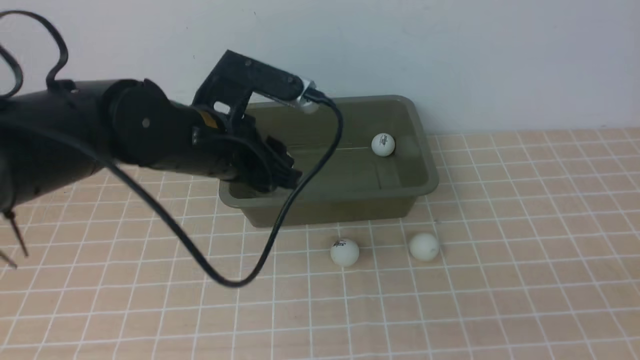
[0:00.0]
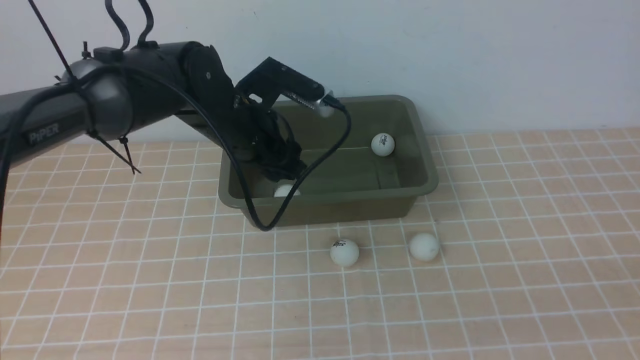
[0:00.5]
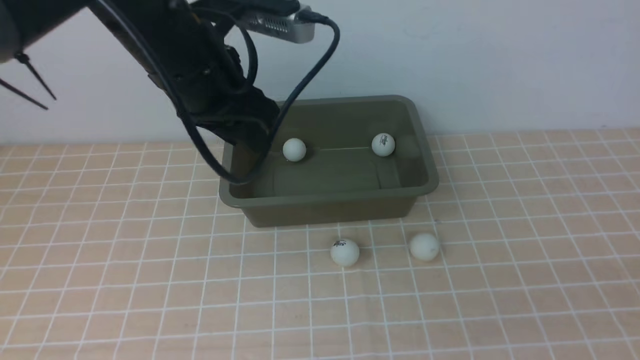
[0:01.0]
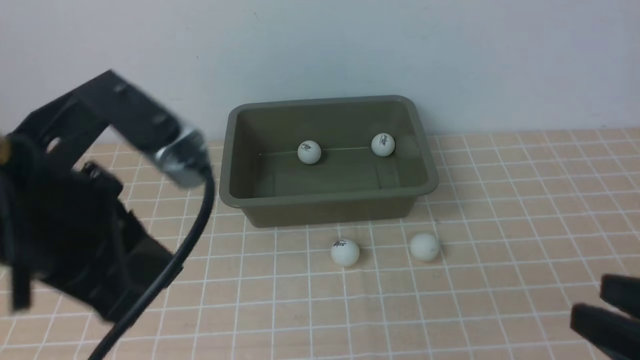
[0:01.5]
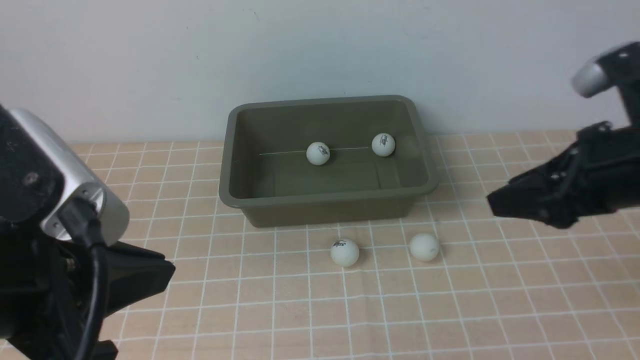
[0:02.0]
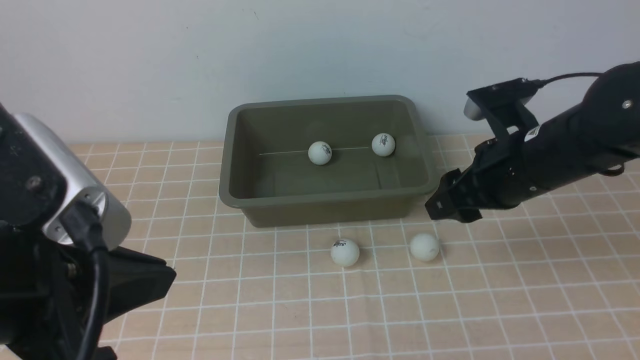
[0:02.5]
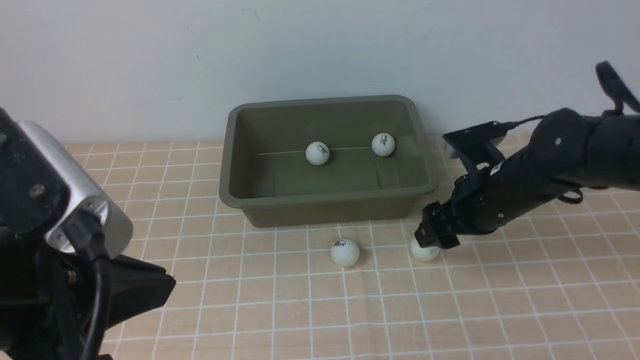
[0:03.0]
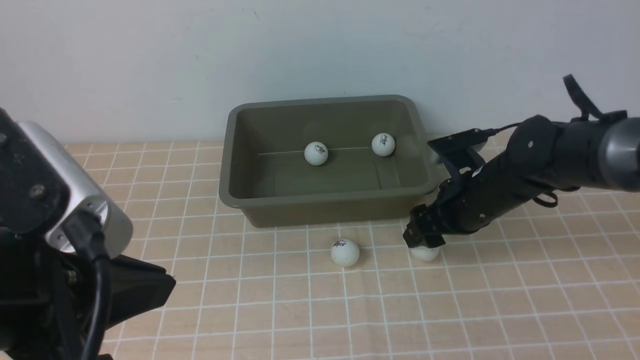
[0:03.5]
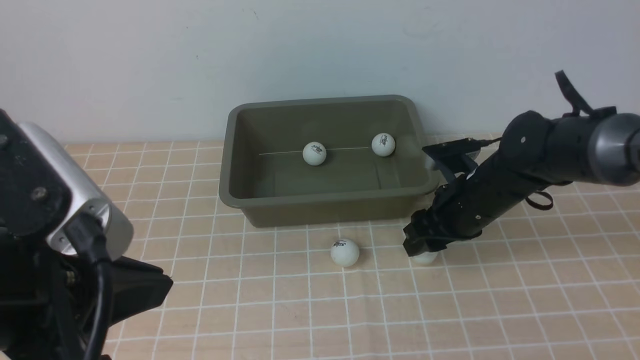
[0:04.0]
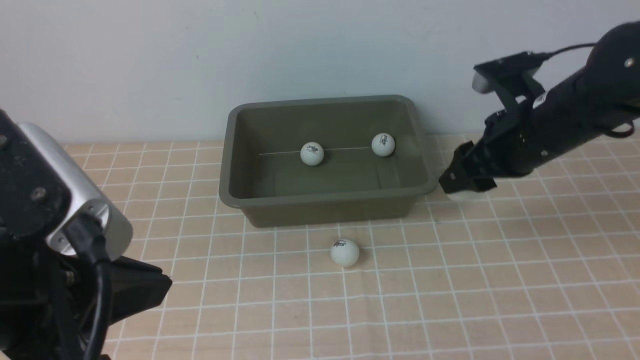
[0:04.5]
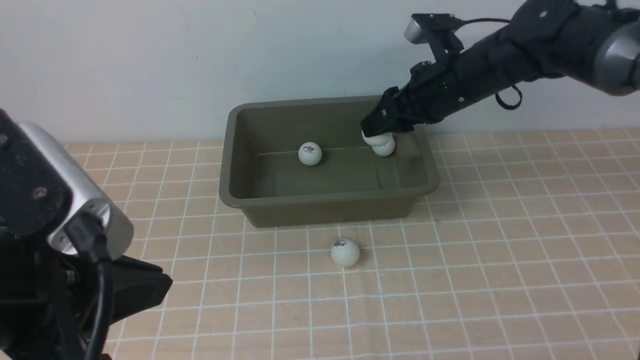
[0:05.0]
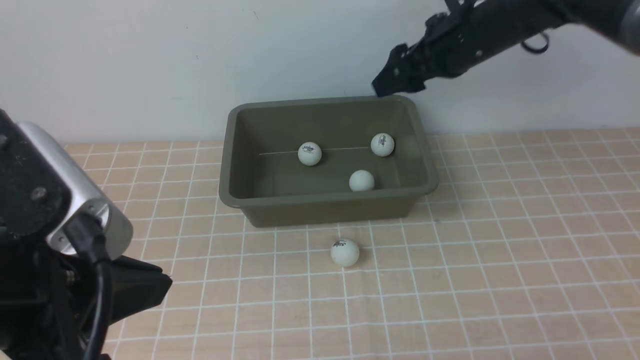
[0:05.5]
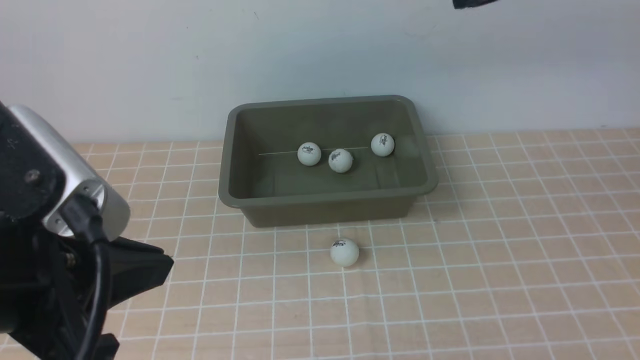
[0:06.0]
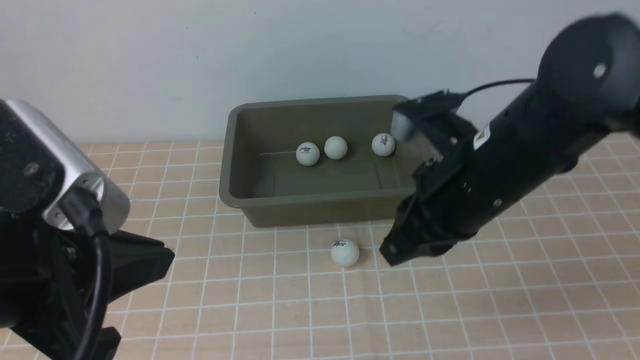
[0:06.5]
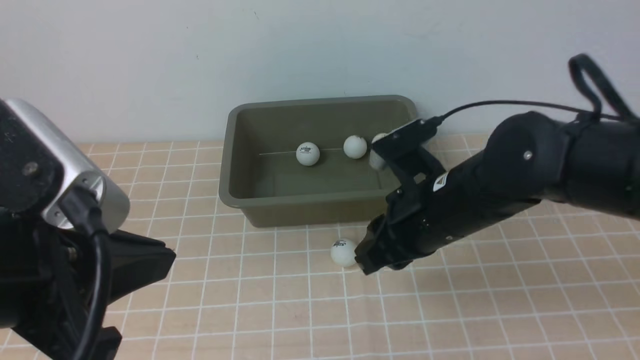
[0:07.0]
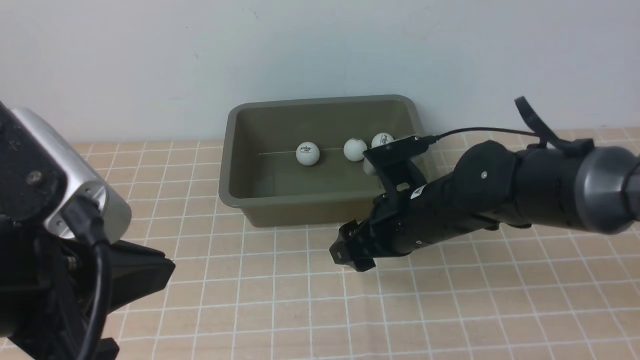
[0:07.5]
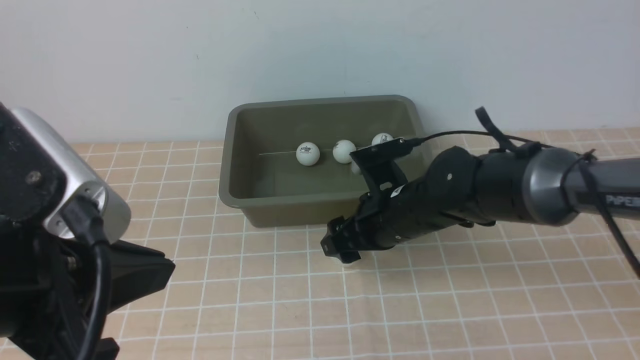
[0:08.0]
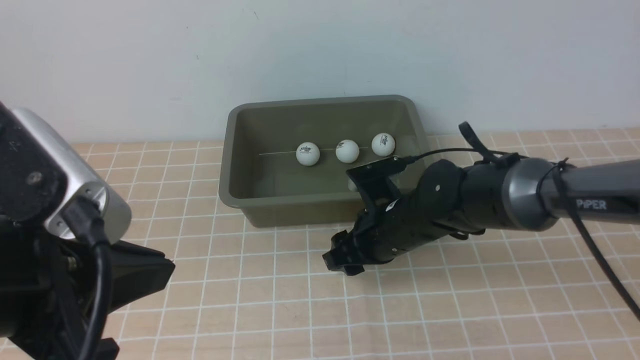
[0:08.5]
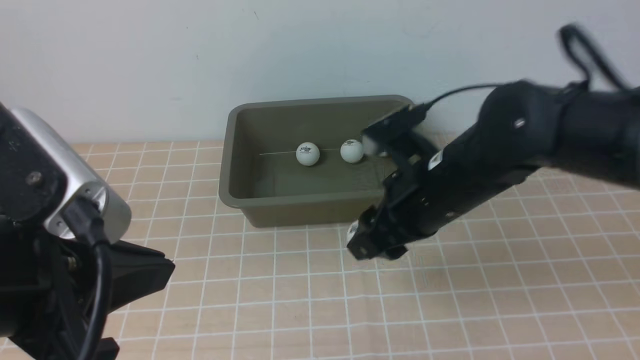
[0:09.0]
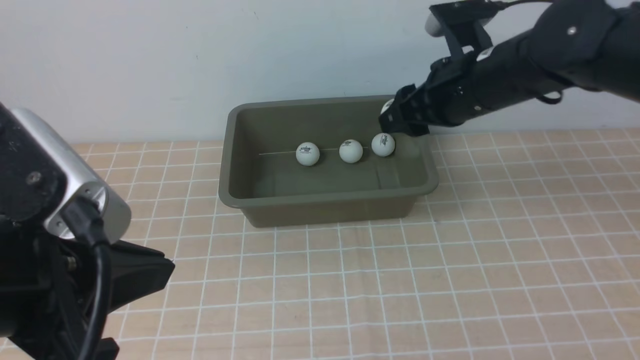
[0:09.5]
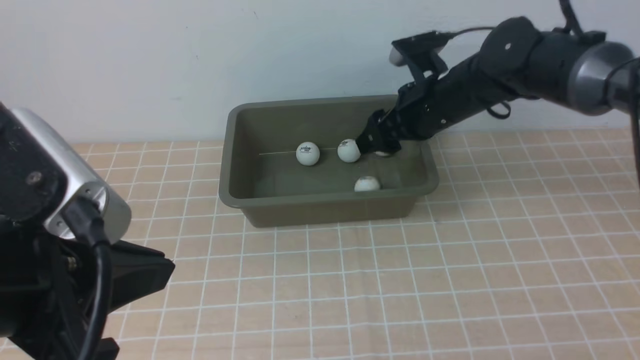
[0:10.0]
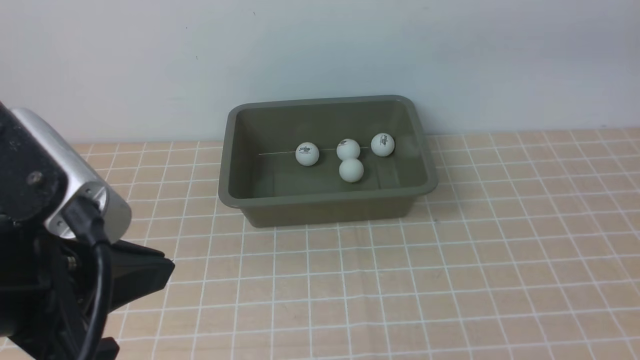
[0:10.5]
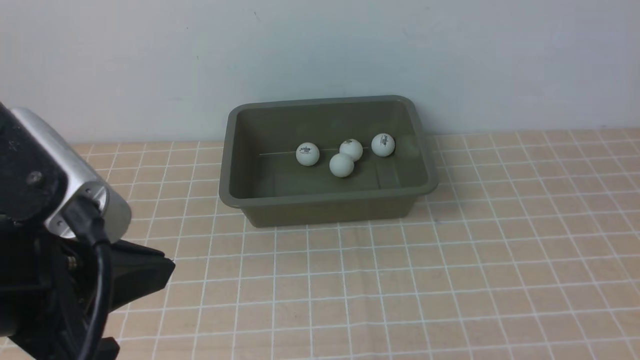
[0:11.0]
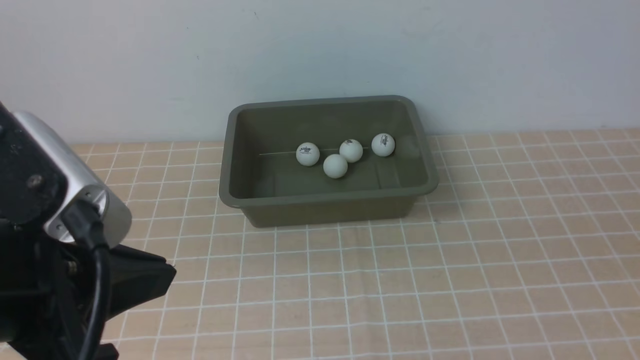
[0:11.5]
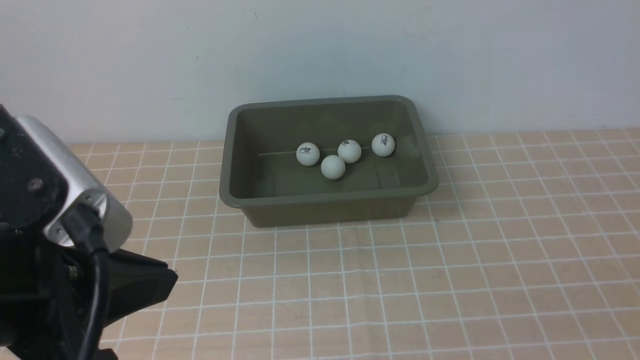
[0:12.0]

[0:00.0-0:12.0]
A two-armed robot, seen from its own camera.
Step, 0:01.0 to 0:04.5: use the left arm to clamp the table tennis ball closest to it.
0:00.0 to 0:02.0: The left gripper is displaced backward and upward by approximately 25 cm, and closes, while the right gripper travels forward by approximately 25 cm.
0:02.0 to 0:04.0: The right gripper moves downward and forward, some 20 cm.
0:04.0 to 0:06.0: The right gripper goes about 25 cm upward, and closes up.
0:06.0 to 0:08.0: The right gripper is displaced downward by approximately 25 cm, and opens its fingers.
0:08.0 to 0:10.0: The right gripper shifts about 15 cm upward, forward and to the right.
0:10.0 to 0:12.0: The right gripper moves backward, approximately 40 cm, and closes up.

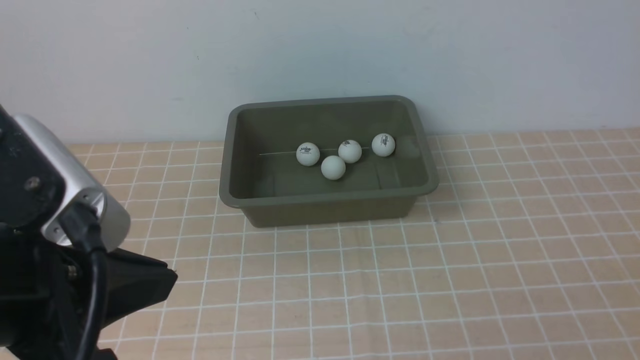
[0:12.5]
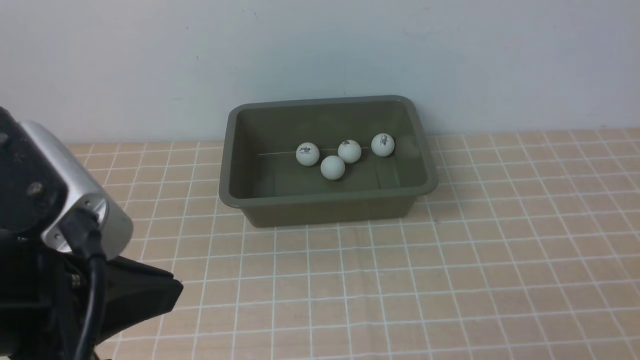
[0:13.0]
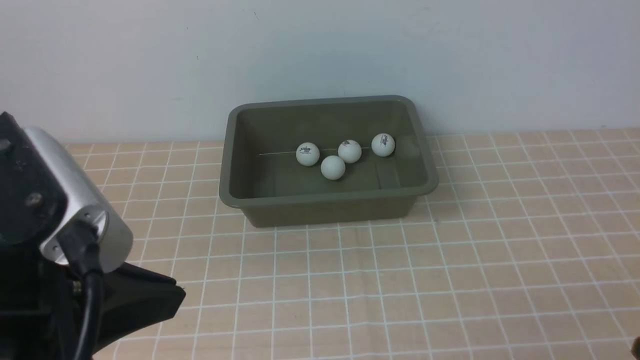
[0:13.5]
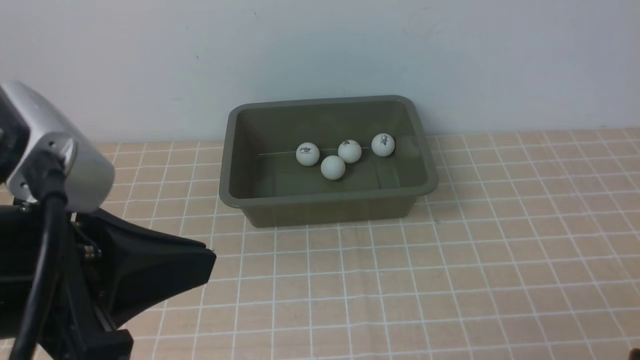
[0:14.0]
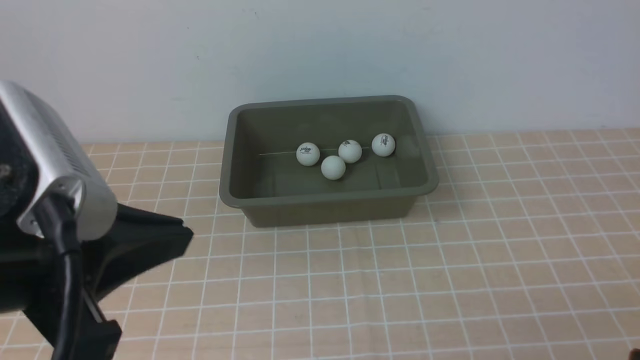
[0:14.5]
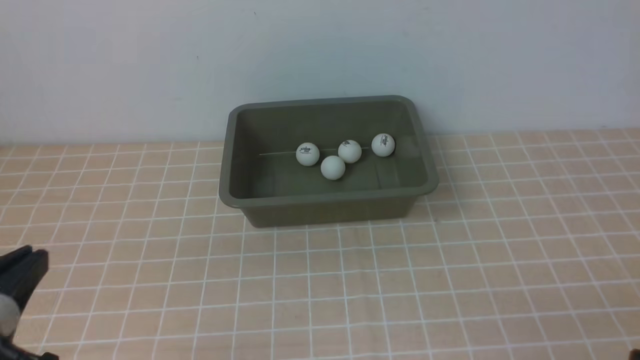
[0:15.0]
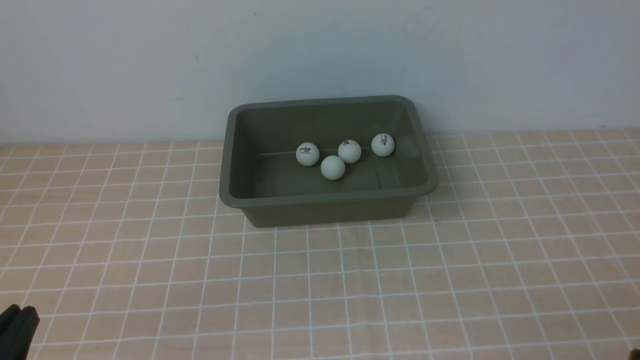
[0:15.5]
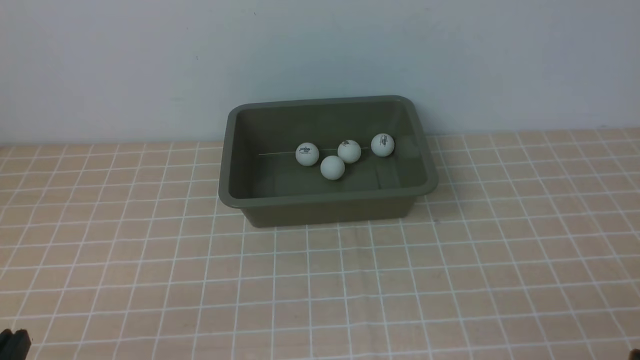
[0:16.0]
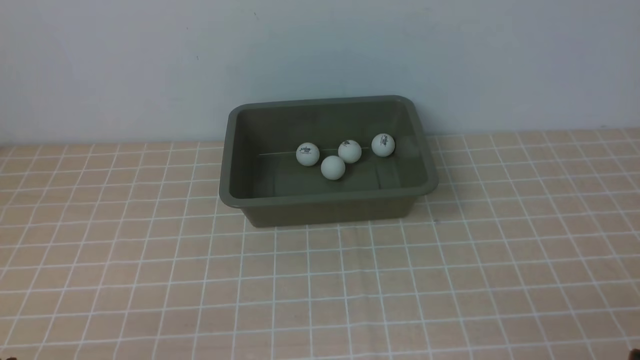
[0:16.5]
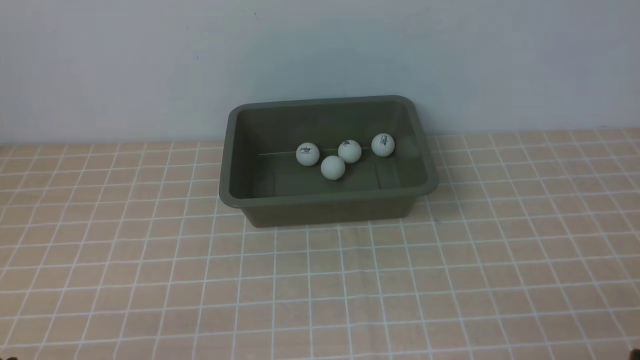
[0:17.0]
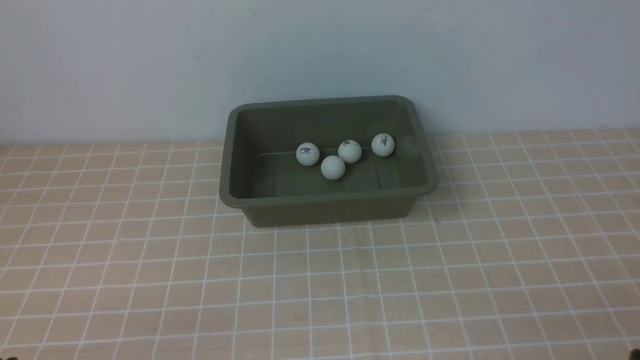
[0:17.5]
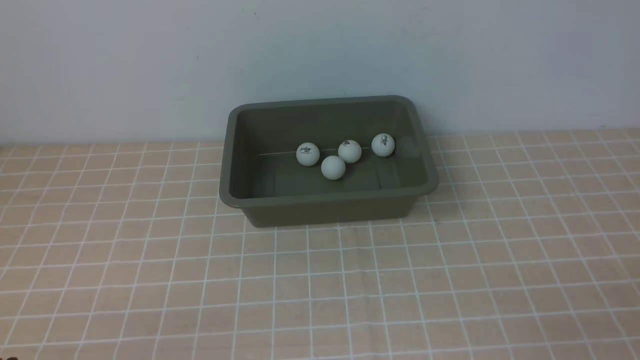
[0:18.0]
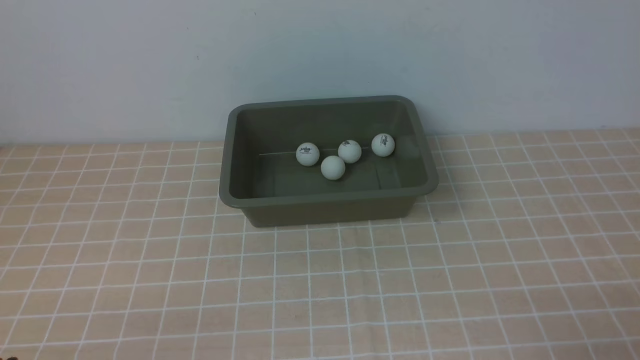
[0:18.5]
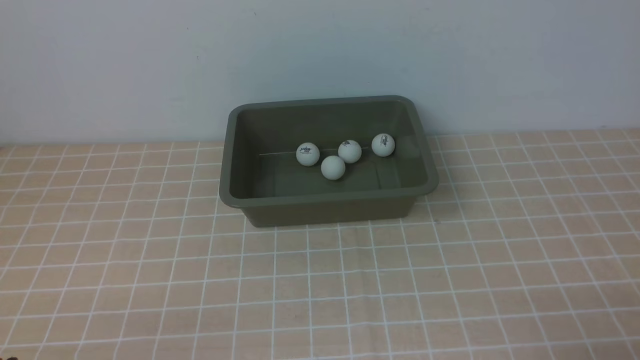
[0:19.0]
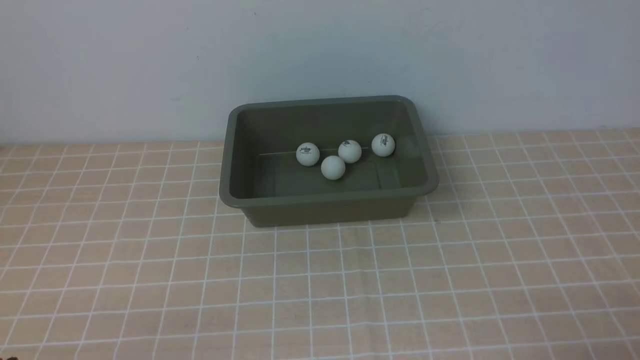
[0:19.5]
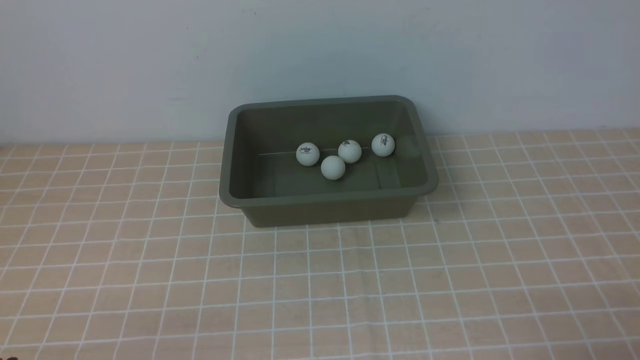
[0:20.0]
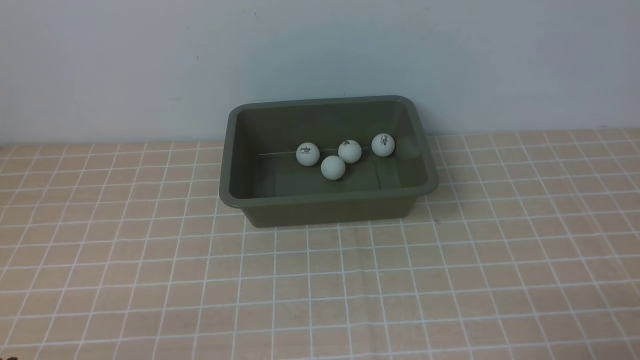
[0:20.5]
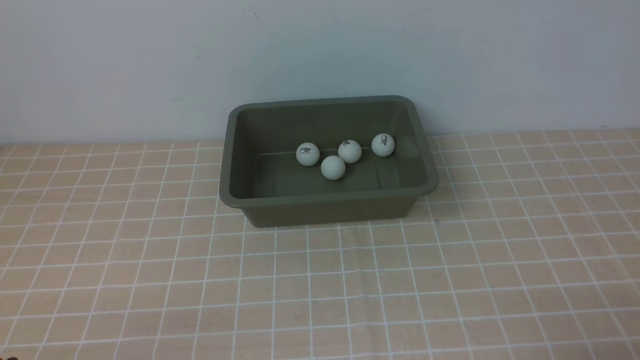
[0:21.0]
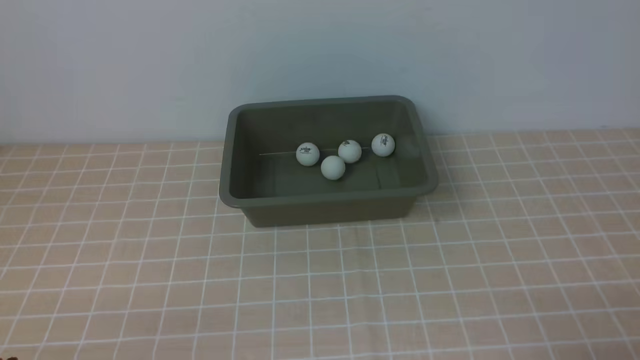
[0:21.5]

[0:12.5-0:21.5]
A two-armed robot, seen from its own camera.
0:14.5 to 0:17.0: The left gripper moves downward, some 20 cm.
0:19.5 to 0:21.5: The two grippers keep their place.
